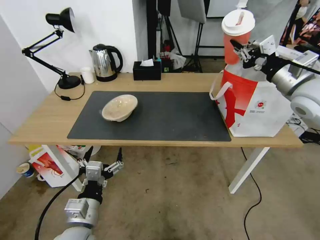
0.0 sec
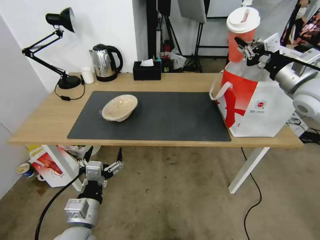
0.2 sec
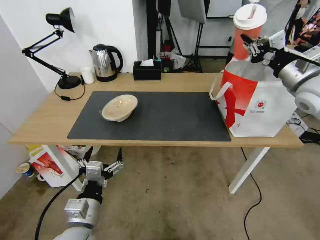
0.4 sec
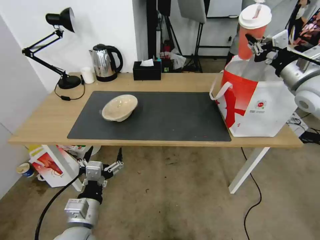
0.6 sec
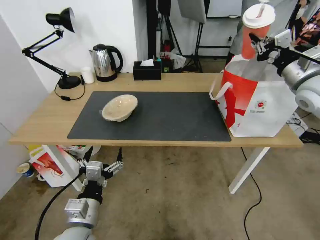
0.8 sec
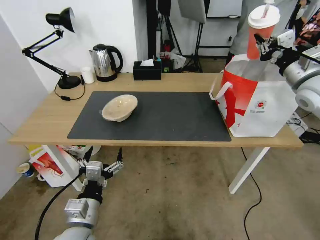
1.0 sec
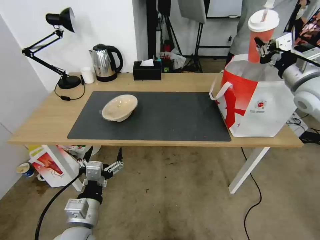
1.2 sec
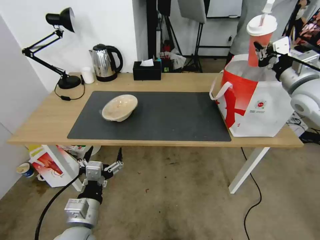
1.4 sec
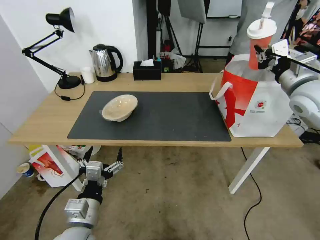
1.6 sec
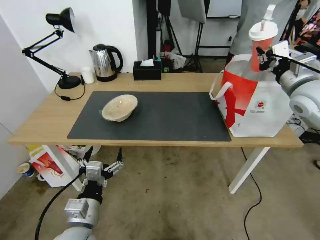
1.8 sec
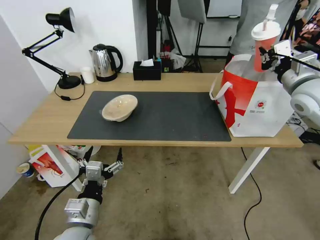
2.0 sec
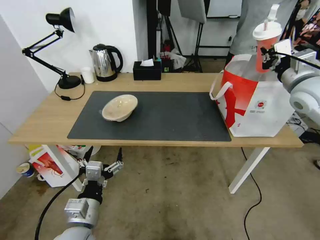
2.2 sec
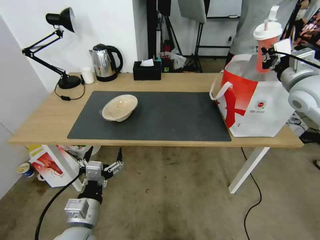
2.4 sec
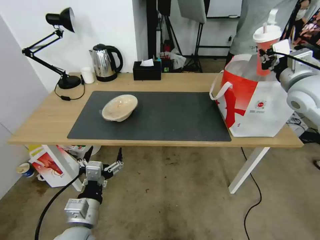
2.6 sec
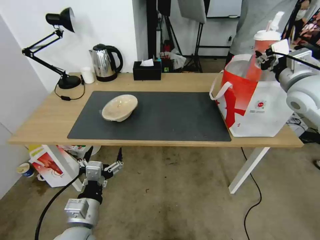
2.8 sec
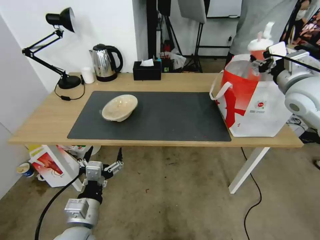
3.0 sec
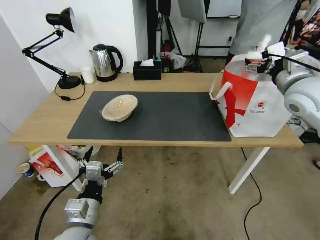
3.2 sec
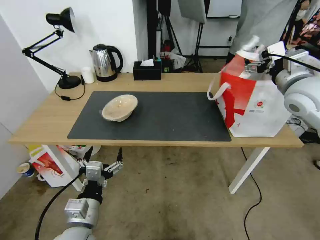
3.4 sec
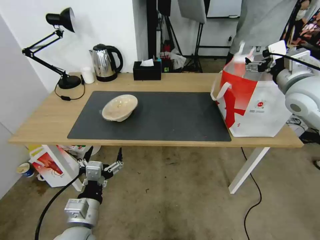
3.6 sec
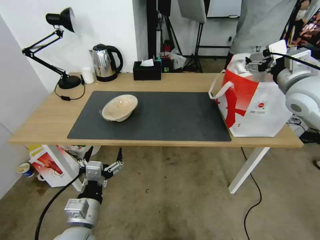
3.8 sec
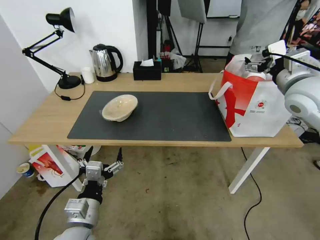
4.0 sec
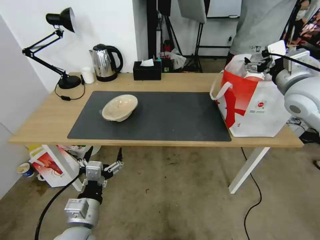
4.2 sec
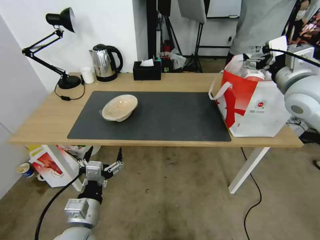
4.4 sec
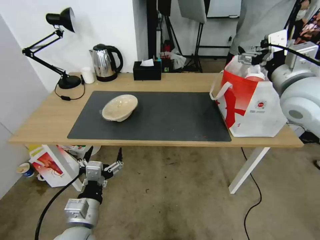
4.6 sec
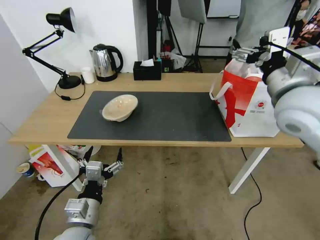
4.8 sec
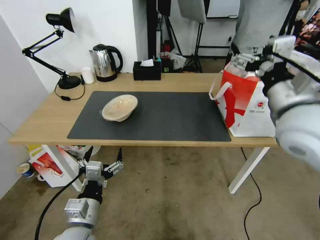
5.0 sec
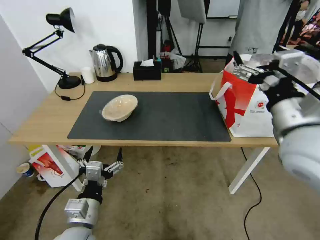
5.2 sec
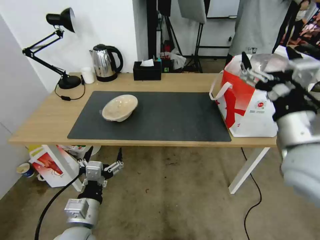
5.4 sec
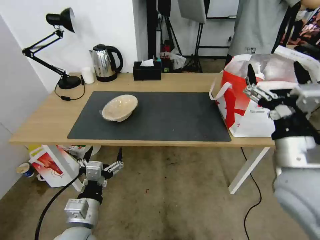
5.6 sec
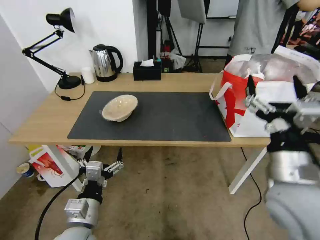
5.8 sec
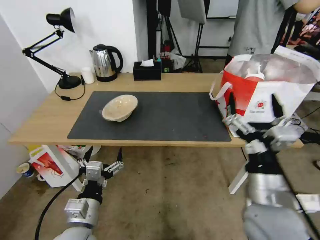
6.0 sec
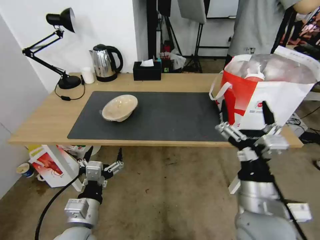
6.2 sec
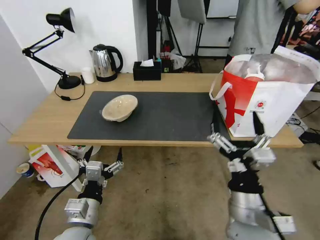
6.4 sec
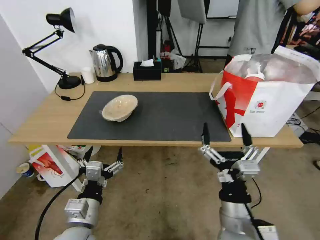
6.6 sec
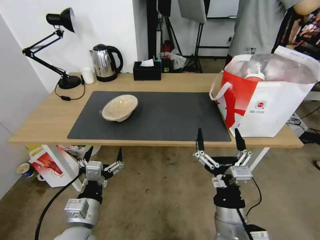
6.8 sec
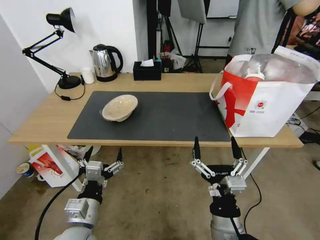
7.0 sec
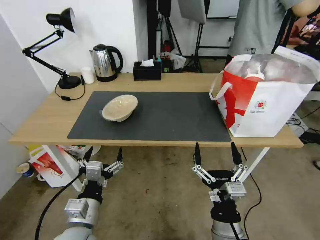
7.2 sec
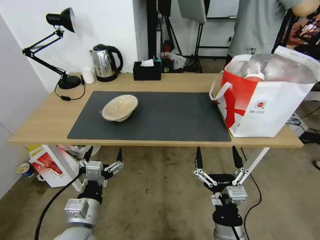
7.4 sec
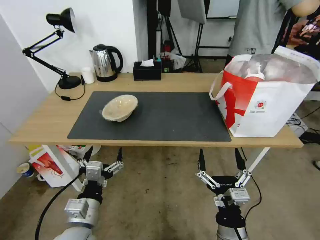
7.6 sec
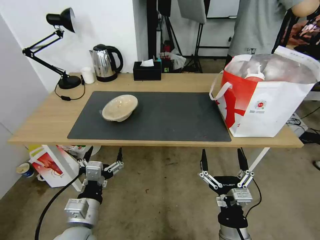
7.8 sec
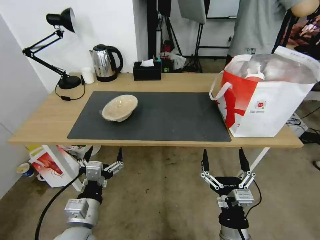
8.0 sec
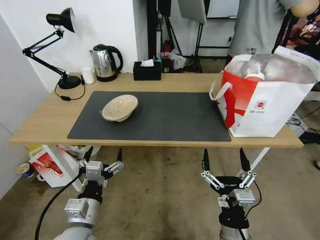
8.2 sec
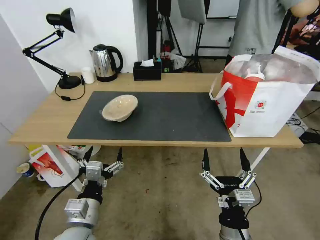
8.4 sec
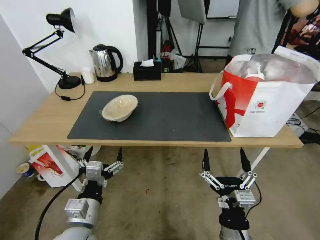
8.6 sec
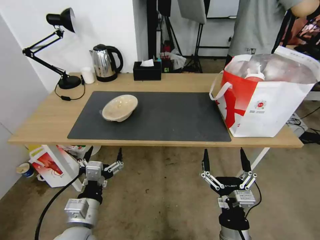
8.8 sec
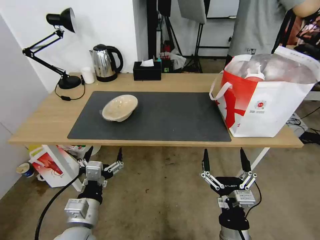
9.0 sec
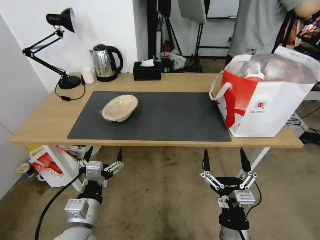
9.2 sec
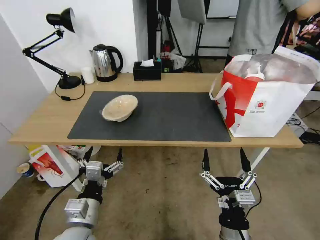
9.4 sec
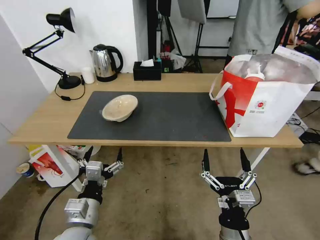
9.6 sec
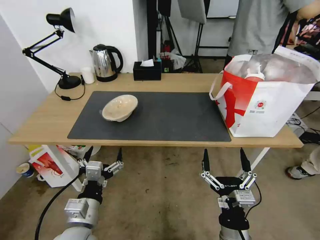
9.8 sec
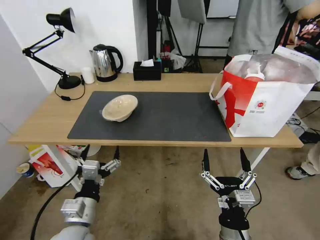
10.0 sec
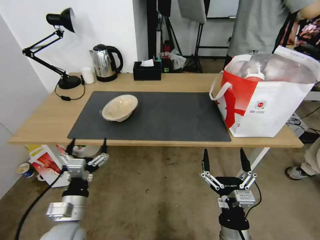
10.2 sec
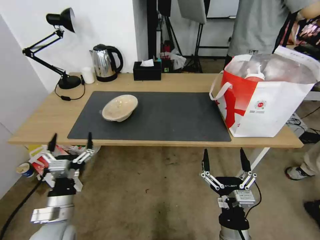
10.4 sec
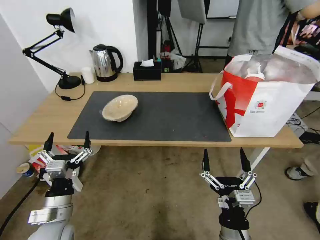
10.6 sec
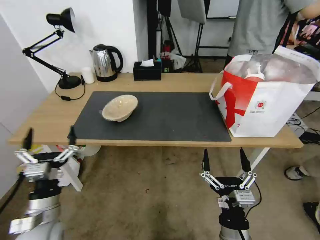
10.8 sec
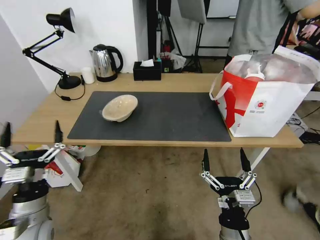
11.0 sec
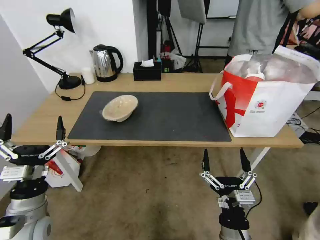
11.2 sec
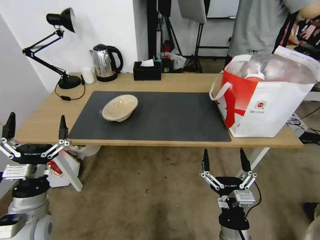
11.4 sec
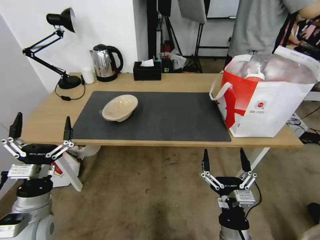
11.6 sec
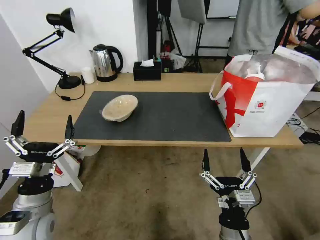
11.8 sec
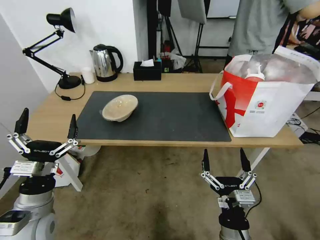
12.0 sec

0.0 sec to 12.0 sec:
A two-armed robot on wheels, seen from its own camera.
Task of the whole recording: Pick up the trash from the table and place it into the takeout bag.
1.6 sec to 3.0 sec: The right gripper opens its fingers.
3.0 sec to 4.4 sec: The right gripper opens up.
4.4 sec to 6.0 sec: The right gripper travels backward, downward and to the left by roughly 30 cm.
6.0 sec to 7.6 sec: The right gripper goes some 15 cm downward and backward.
7.6 sec to 9.0 sec: The two grippers keep their place.
9.0 sec to 10.4 sec: The left gripper shifts about 5 cm to the left.
10.4 sec to 12.0 sec: The left gripper moves about 5 cm.

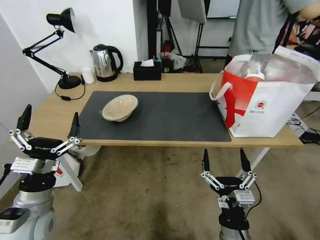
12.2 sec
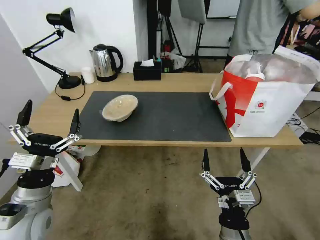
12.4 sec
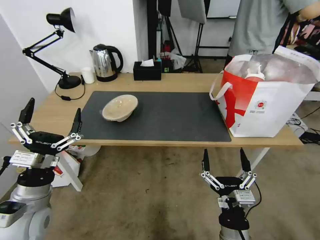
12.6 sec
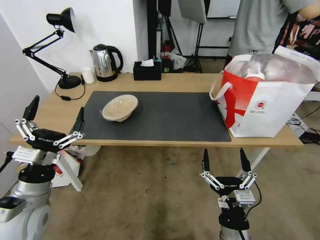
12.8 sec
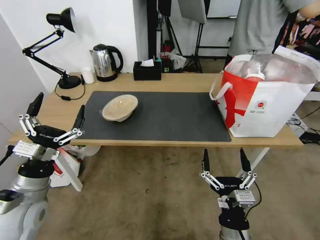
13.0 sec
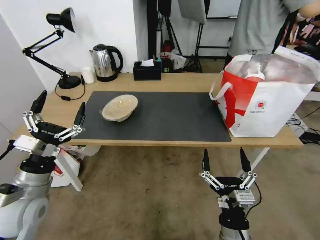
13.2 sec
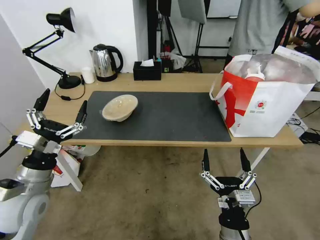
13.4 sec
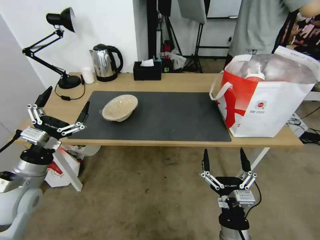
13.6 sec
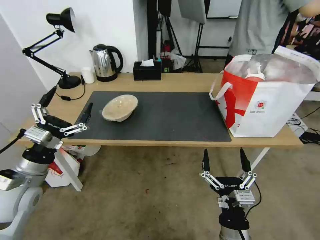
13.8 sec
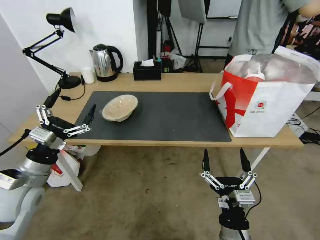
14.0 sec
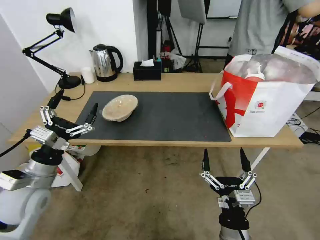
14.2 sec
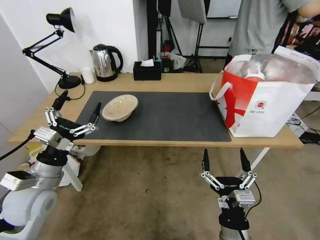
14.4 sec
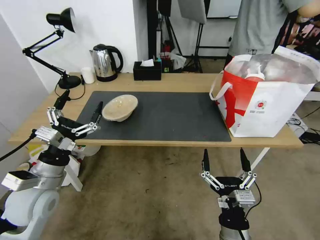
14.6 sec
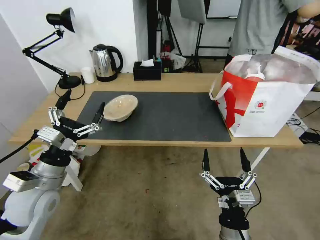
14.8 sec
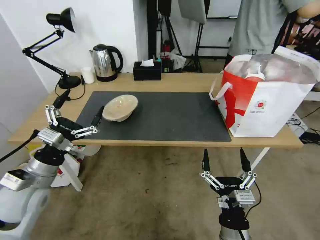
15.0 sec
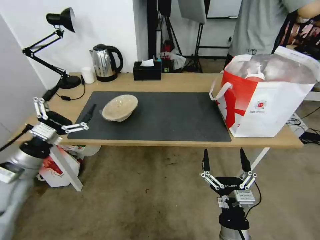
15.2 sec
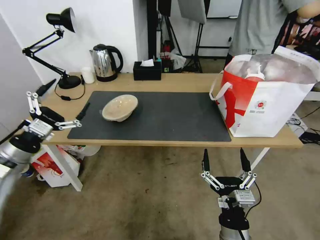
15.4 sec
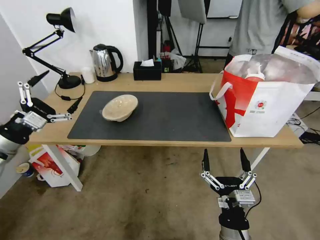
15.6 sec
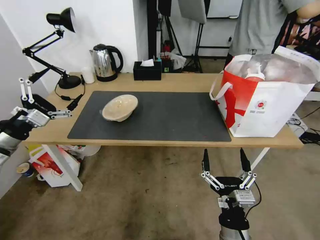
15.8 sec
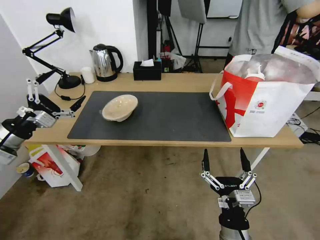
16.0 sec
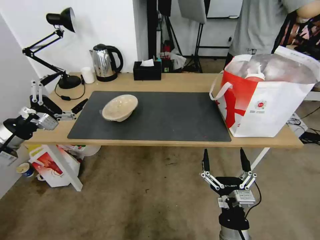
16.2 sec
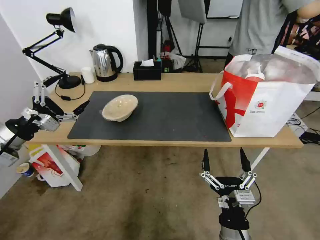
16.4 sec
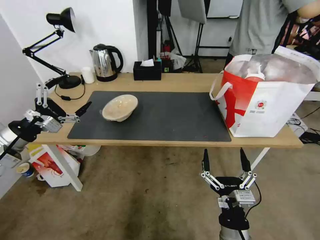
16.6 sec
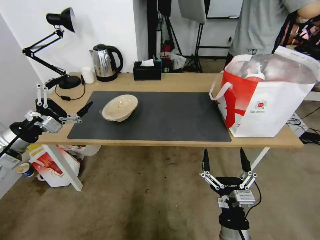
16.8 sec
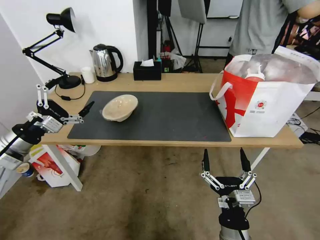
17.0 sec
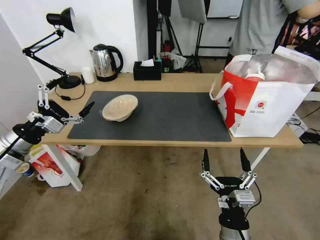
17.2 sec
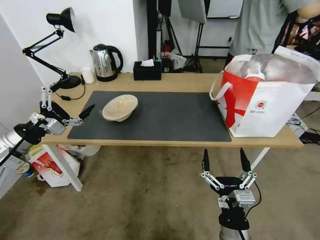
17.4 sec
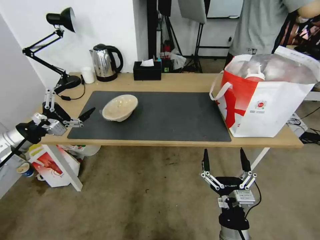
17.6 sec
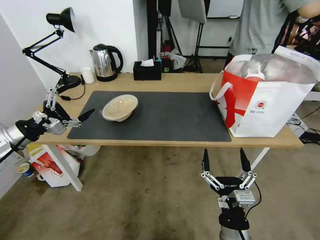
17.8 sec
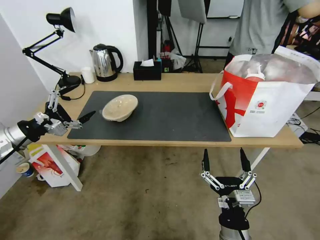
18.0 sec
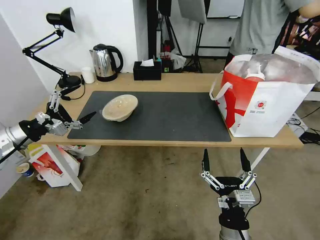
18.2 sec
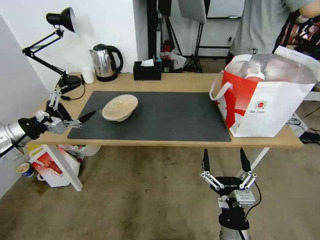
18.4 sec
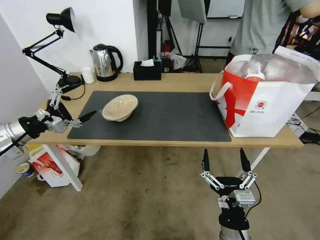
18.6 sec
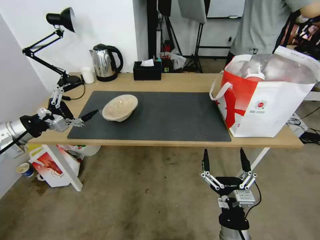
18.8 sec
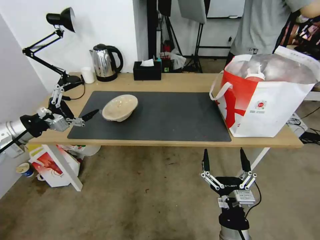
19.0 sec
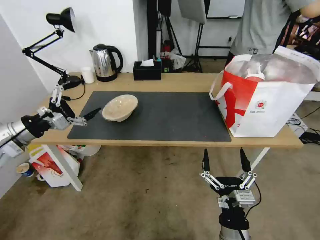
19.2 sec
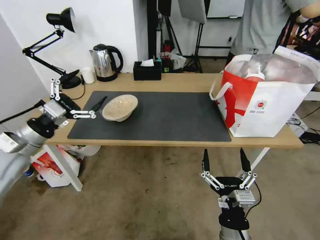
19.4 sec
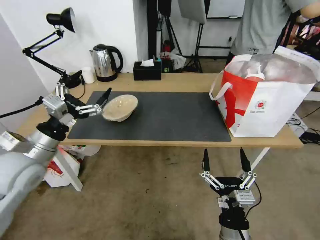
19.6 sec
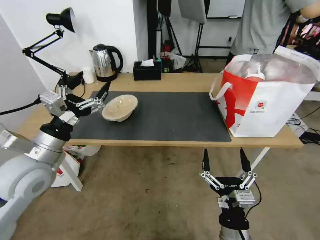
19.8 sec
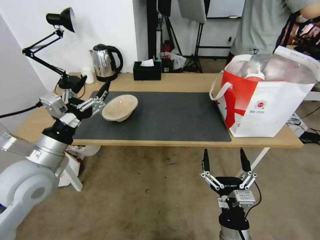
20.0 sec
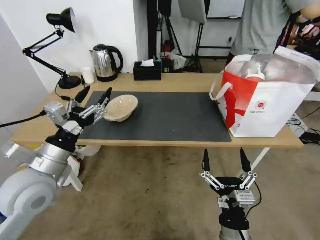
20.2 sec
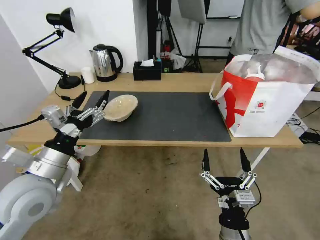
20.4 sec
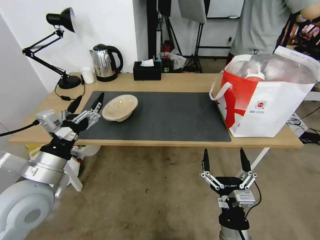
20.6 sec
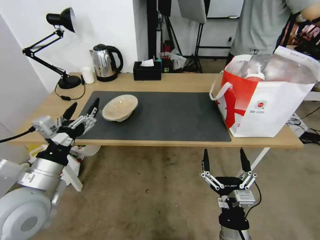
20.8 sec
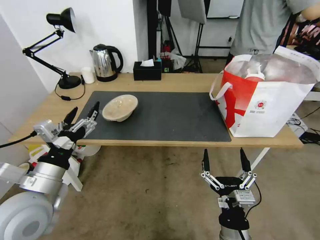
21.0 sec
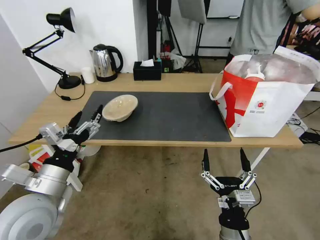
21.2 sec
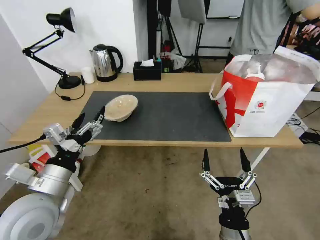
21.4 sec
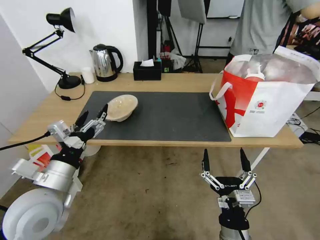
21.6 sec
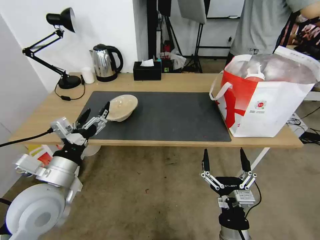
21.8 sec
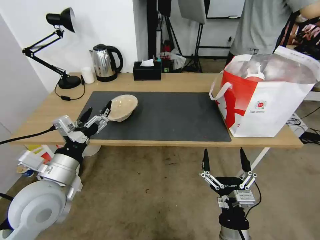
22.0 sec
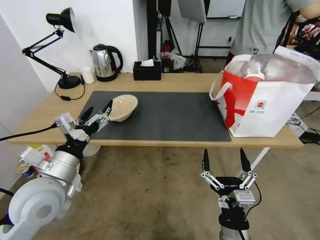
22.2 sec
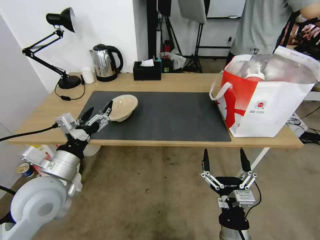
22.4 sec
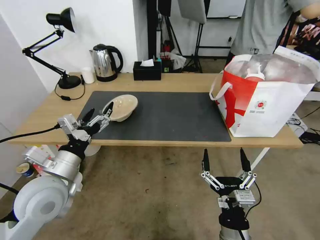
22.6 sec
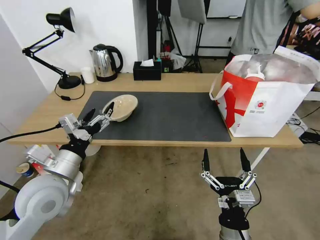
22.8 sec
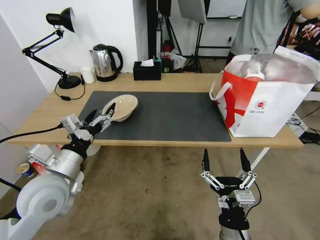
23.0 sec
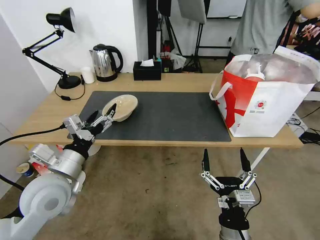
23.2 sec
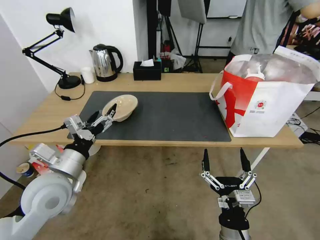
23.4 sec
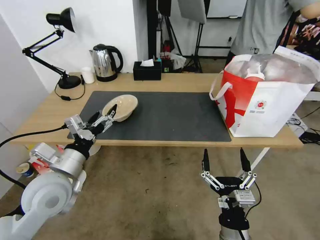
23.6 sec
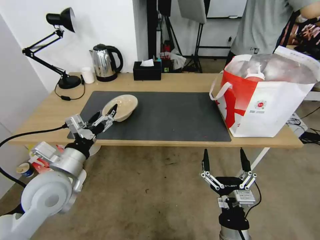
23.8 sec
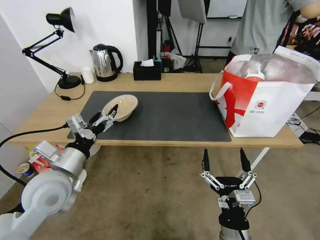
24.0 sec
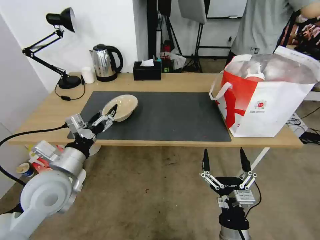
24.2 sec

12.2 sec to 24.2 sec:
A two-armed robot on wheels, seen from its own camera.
Task of the whole recording: Pick up the trash from the table and place it into the takeout bag.
12.2 sec to 13.8 sec: The left gripper is displaced forward by about 5 cm.
13.8 sec to 15.2 sec: The grippers make only small movements.
15.2 sec to 16.6 sec: The left gripper heads upward and to the left, covering about 10 cm.
16.6 sec to 18.2 sec: There are only small adjustments of the grippers.
18.2 sec to 19.8 sec: The left gripper heads to the right, covering about 15 cm.
19.8 sec to 21.2 sec: The left gripper moves backward, roughly 5 cm.
21.2 sec to 24.2 sec: The grippers move only a little.
